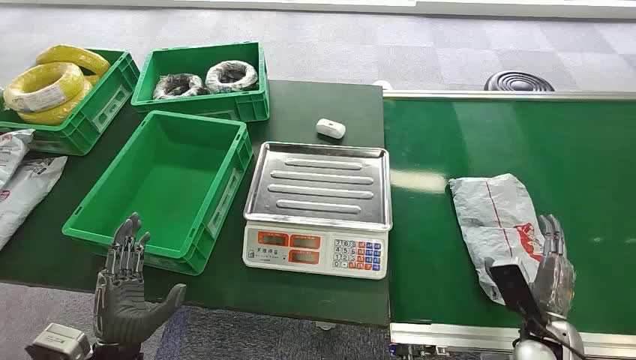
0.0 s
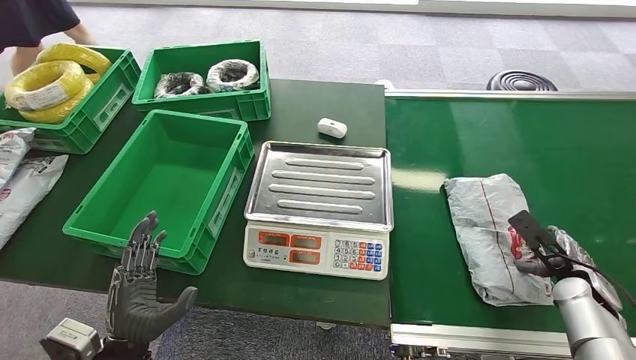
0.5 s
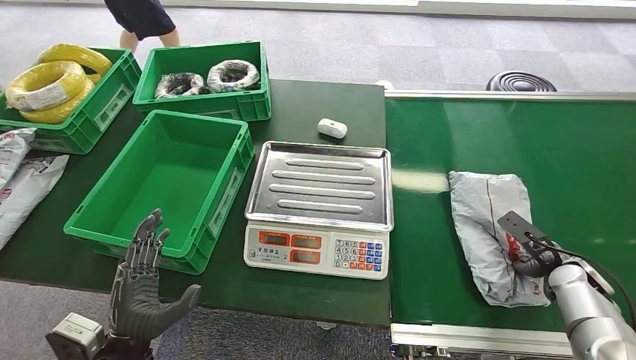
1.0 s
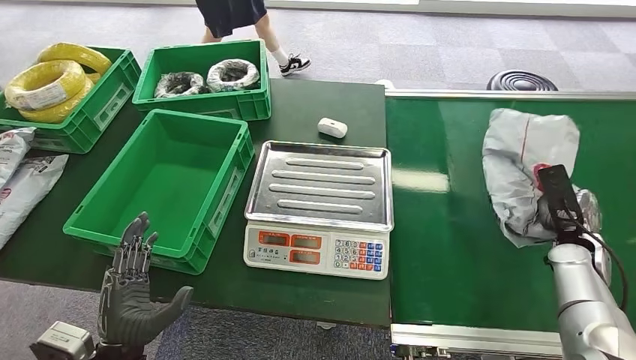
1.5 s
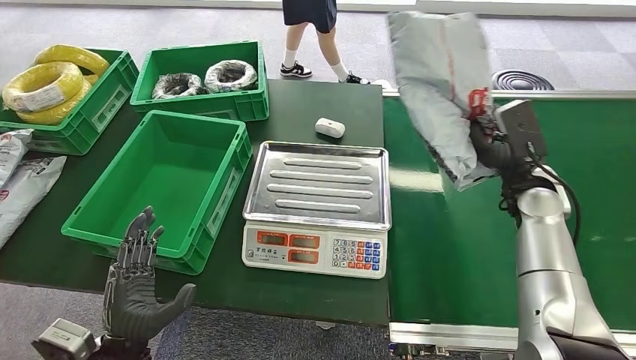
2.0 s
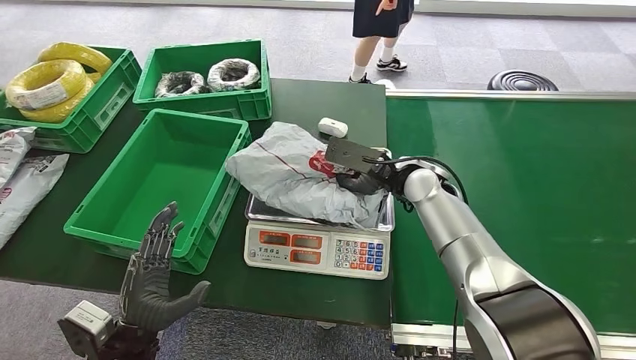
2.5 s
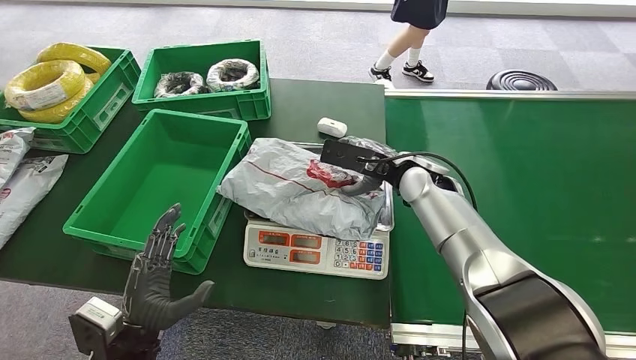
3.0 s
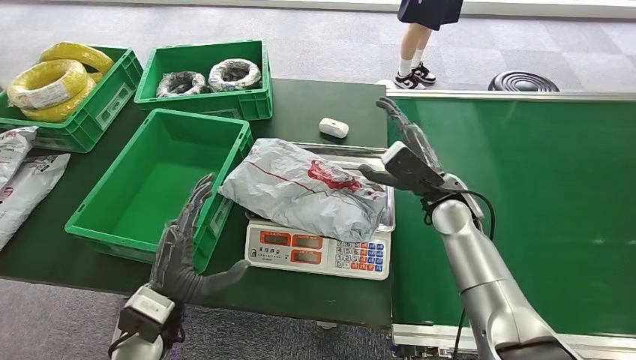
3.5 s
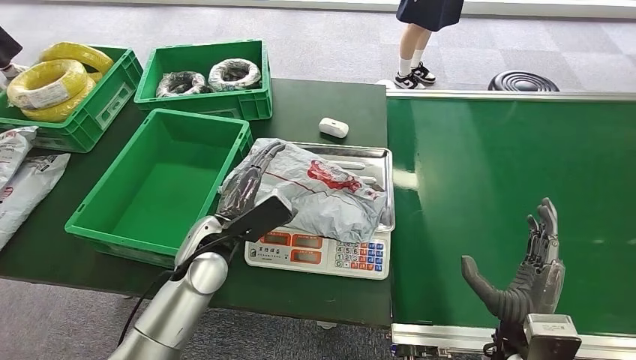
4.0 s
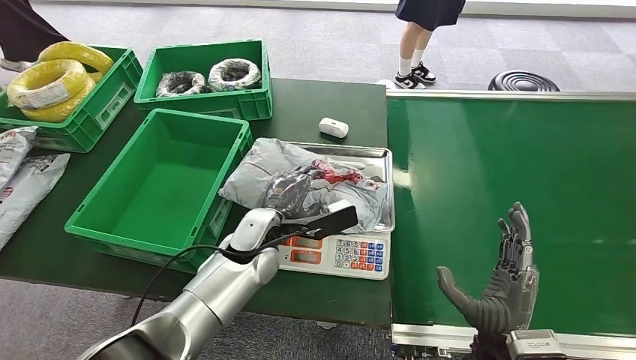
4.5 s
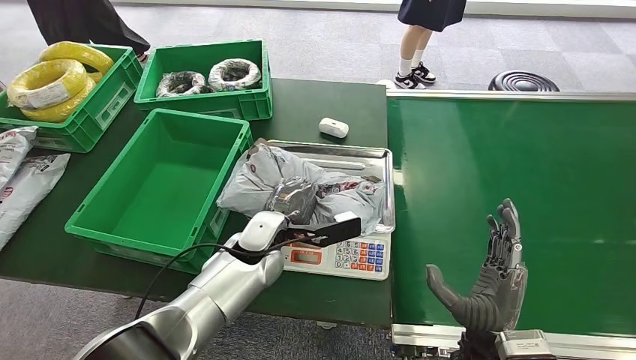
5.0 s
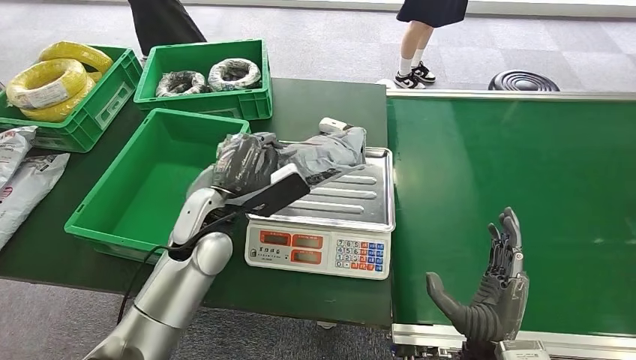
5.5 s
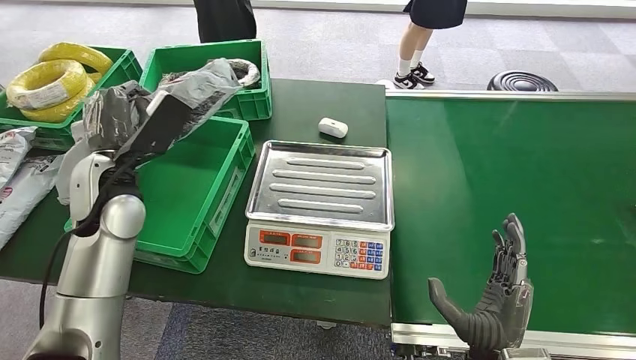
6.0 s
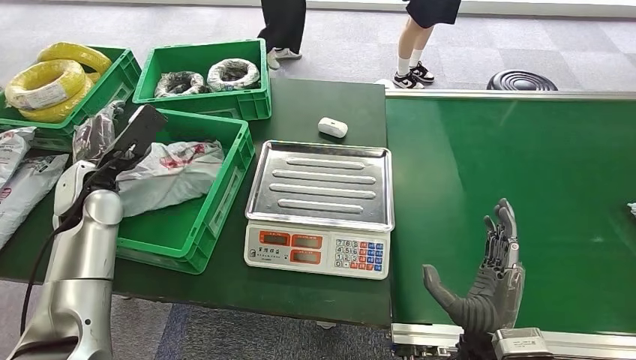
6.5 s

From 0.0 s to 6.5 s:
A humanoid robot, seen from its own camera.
Step, from 0.0 s to 1.5 s: Pick up the package from the conveyor belt.
Step, from 2.0 s to 3.0 s: Place the package onto the inbound machine.
Step, from 4.0 s to 5.5 s: Pick up the package from the inbound machine.
Step, from 6.0 s to 6.5 s: Place the package into the parcel locker.
